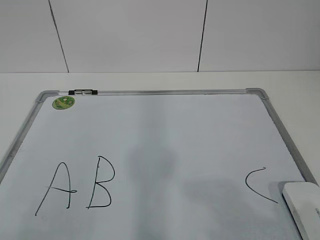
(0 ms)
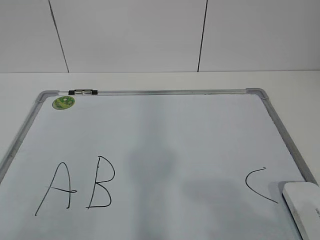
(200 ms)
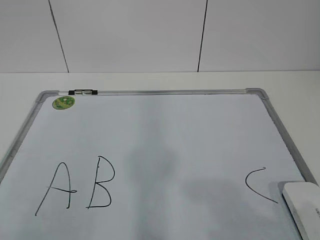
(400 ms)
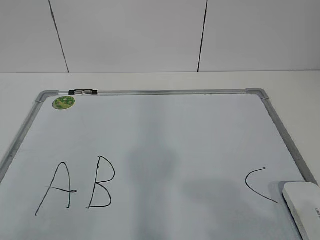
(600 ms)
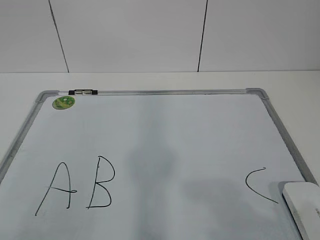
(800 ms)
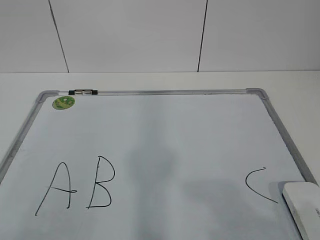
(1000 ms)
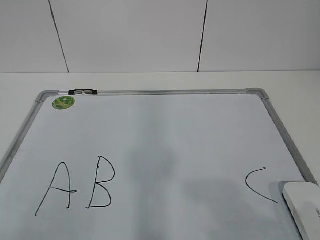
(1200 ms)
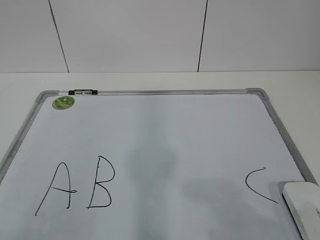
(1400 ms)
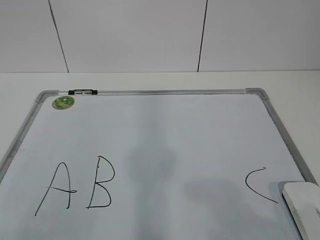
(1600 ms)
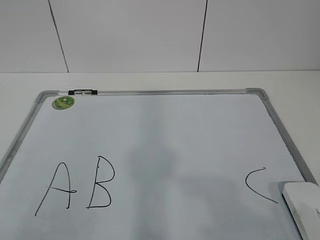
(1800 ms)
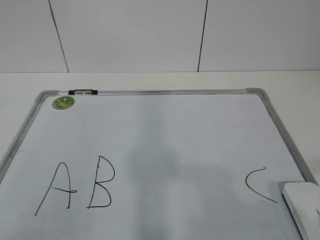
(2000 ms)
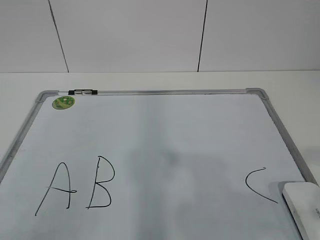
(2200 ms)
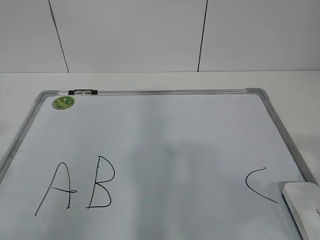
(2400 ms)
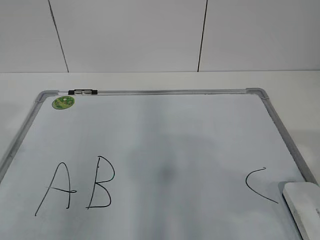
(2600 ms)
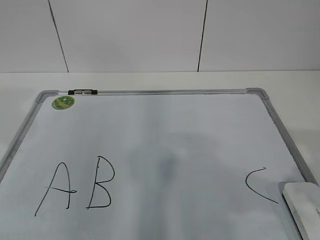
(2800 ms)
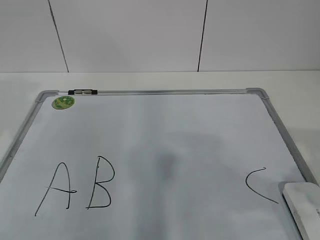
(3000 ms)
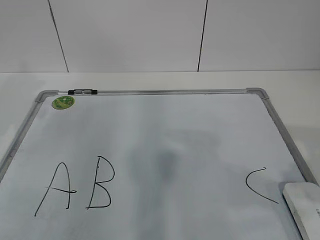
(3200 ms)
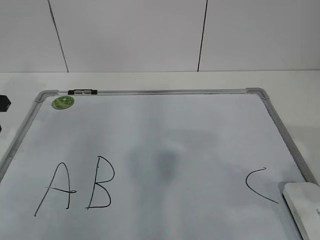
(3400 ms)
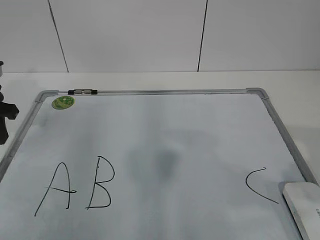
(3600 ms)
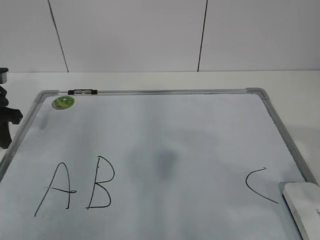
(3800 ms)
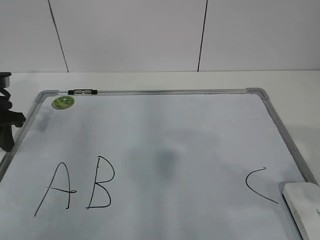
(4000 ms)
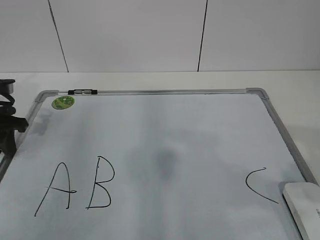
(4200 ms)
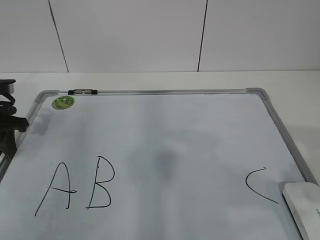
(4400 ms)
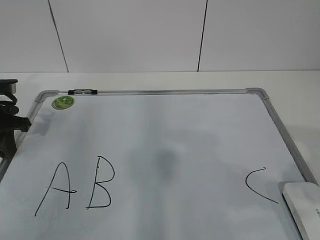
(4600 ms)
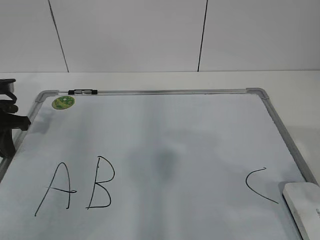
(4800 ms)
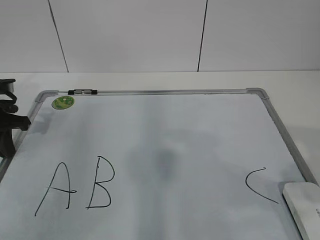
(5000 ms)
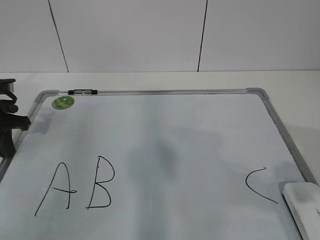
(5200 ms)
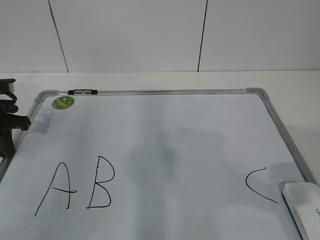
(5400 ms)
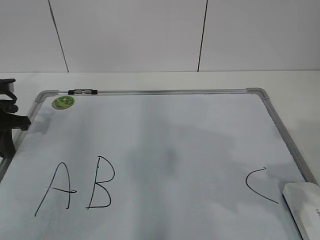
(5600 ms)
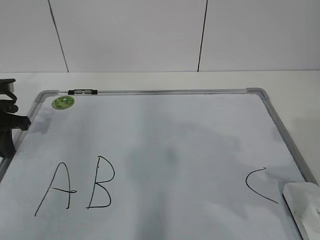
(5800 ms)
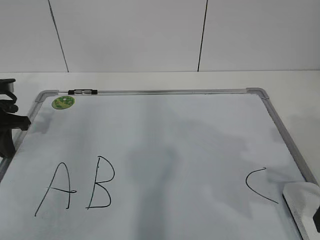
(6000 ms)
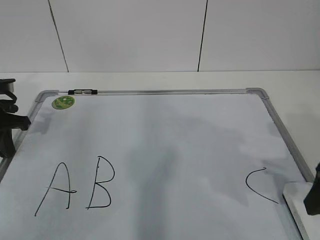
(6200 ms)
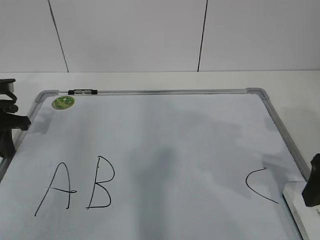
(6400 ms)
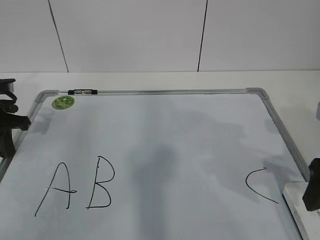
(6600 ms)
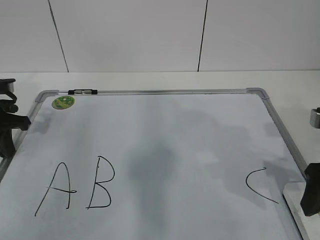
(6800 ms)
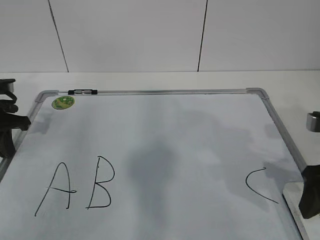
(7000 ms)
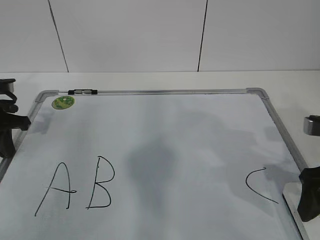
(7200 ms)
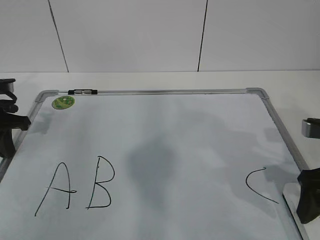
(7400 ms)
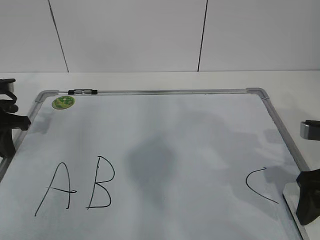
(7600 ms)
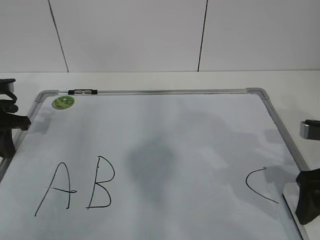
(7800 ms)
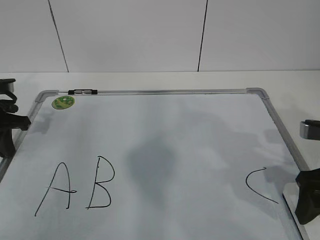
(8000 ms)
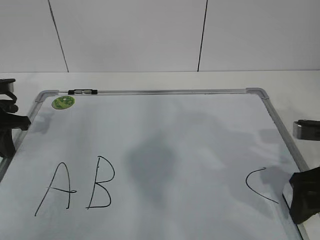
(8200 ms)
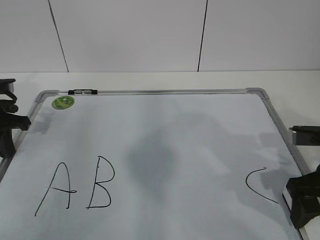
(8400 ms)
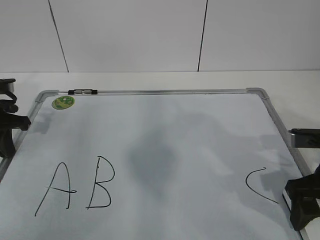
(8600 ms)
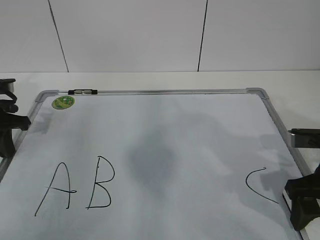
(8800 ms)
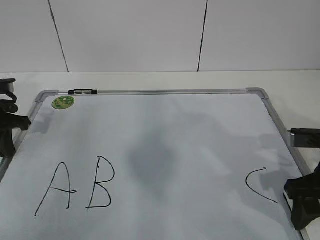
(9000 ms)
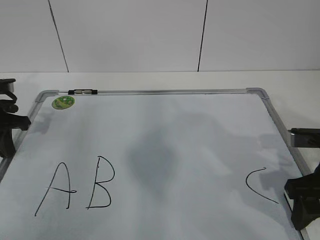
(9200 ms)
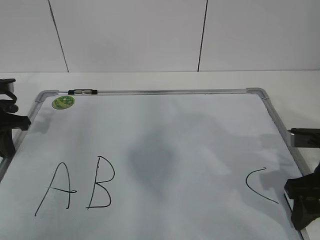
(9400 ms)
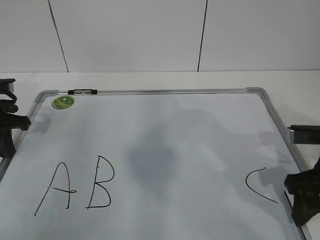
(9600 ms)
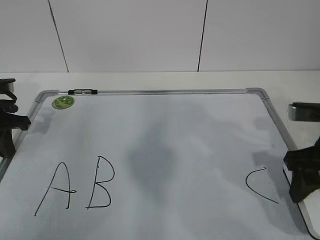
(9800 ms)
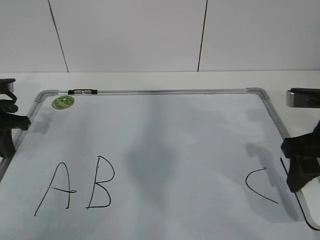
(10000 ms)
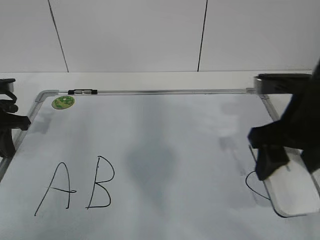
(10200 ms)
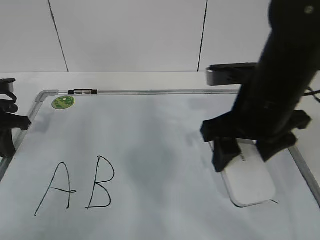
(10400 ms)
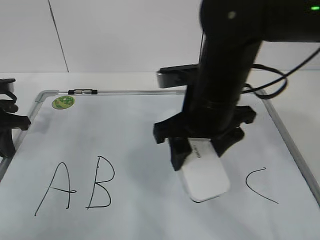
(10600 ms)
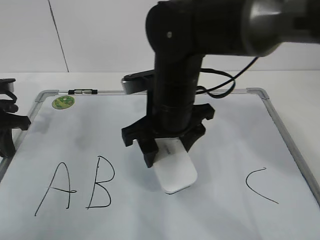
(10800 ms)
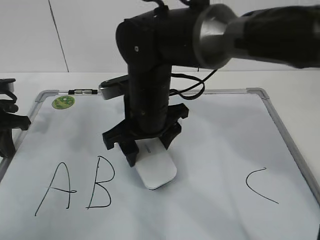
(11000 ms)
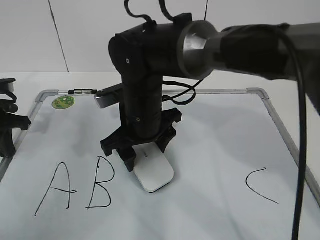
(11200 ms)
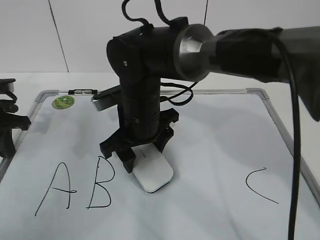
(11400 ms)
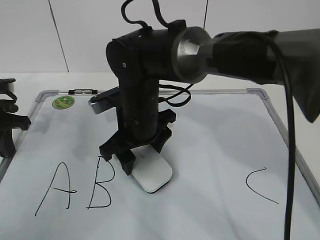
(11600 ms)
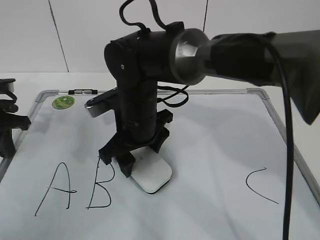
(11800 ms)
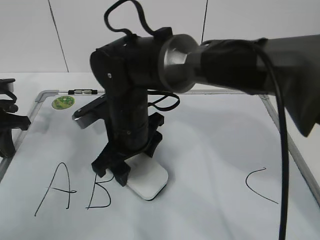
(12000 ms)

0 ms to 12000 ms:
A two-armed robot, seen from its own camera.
Task of the whole recording: pick up the eraser on the blackboard and erase the letter "B".
Step, 4000 ms to 7400 ms: Grab the eraser with your right hand.
1600 ms to 3000 ms: The left gripper goes some 25 cm forward. Meanwhile the right gripper moves forward, approximately 10 cm.
3000 ms to 4400 ms: The left gripper is displaced downward and forward by roughly 15 cm.
6000 ms to 7600 ms: The right gripper goes about 5 cm forward.
7600 ms to 9000 ms: The right gripper closes its fingers.
9000 ms to 10400 ms: The right gripper shifts some 15 cm to the left and upward.
10400 ms to 12000 ms: The right gripper shifts some 20 cm to the left and downward.

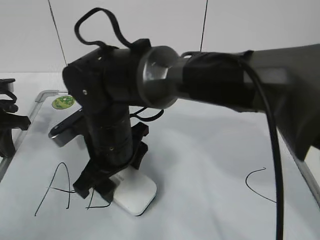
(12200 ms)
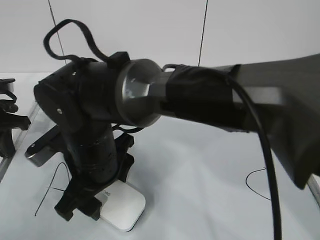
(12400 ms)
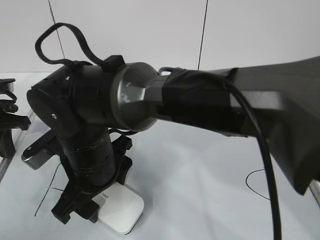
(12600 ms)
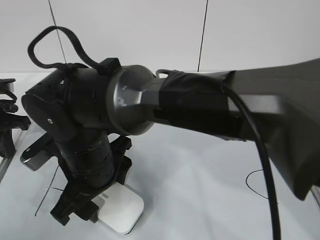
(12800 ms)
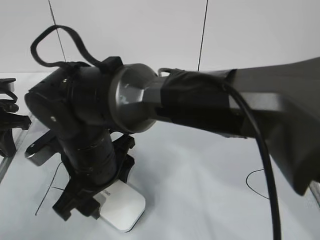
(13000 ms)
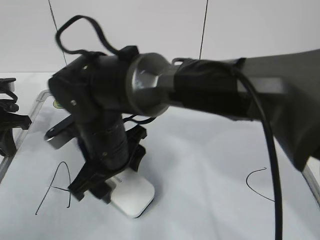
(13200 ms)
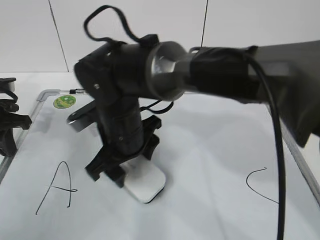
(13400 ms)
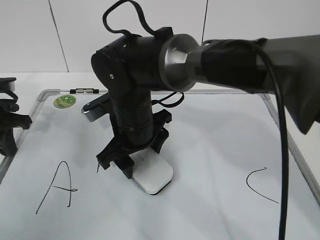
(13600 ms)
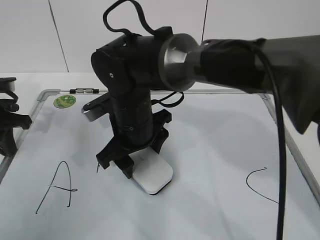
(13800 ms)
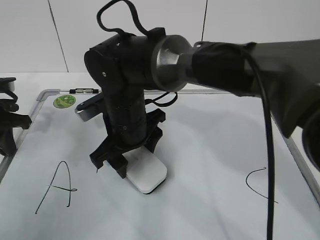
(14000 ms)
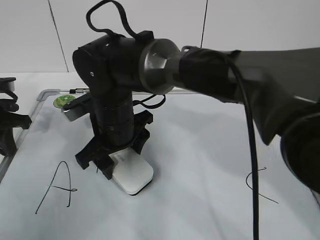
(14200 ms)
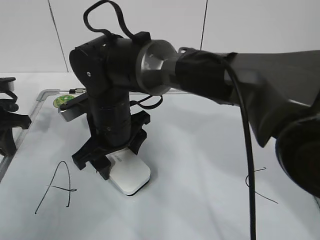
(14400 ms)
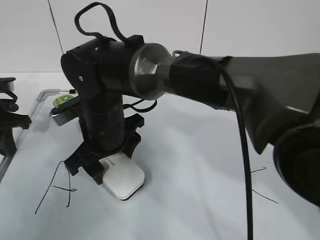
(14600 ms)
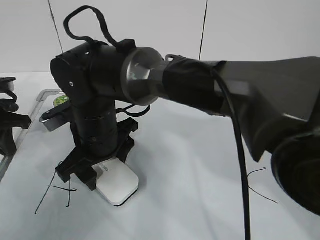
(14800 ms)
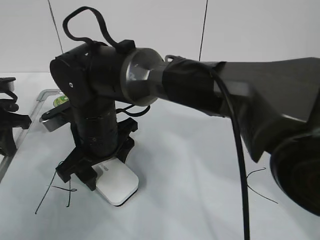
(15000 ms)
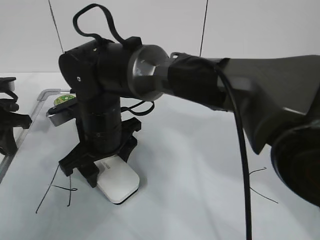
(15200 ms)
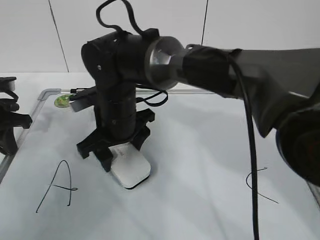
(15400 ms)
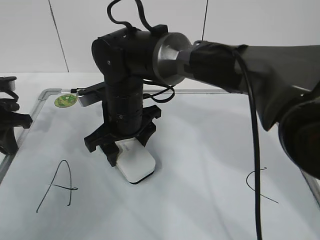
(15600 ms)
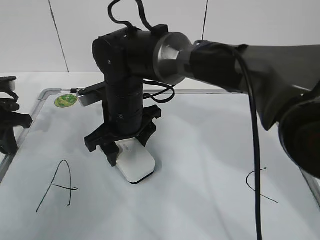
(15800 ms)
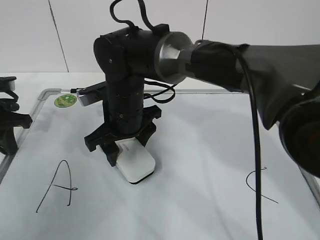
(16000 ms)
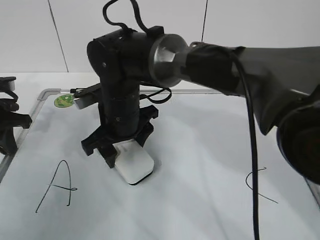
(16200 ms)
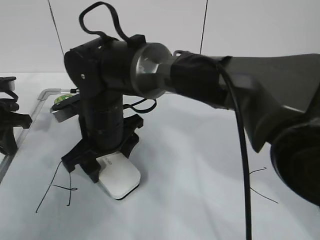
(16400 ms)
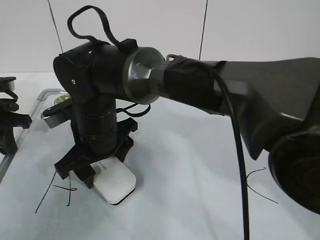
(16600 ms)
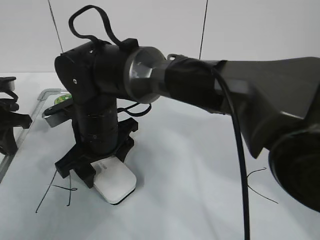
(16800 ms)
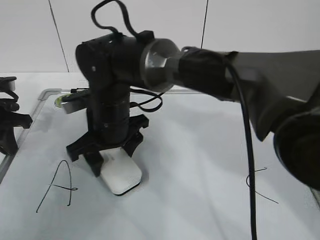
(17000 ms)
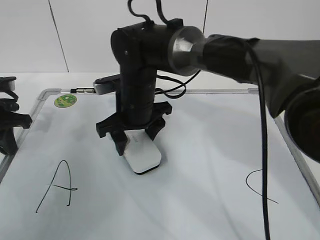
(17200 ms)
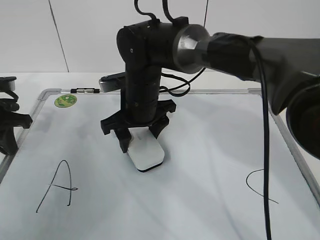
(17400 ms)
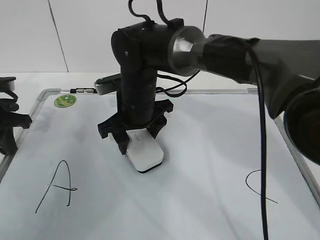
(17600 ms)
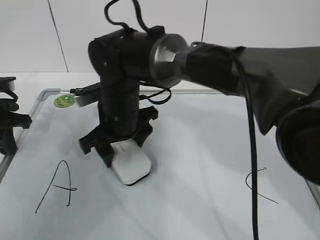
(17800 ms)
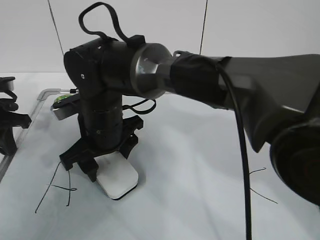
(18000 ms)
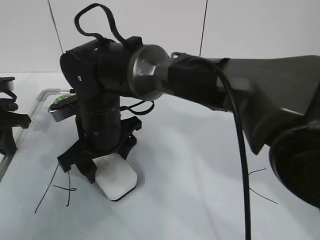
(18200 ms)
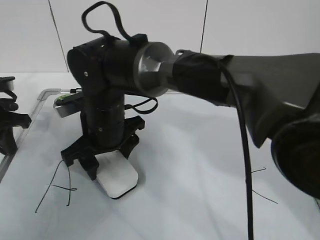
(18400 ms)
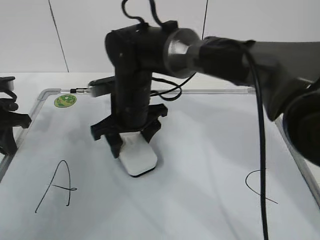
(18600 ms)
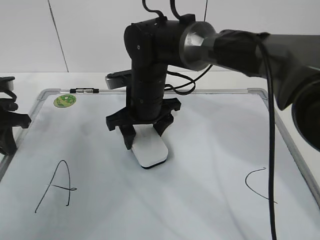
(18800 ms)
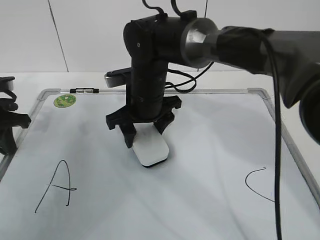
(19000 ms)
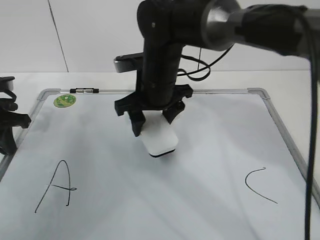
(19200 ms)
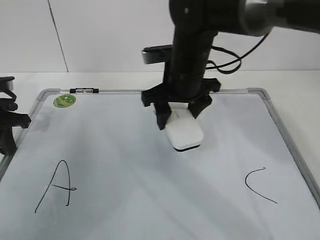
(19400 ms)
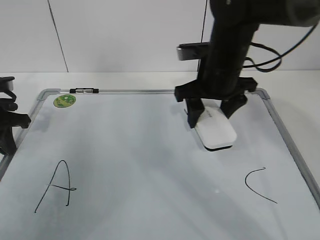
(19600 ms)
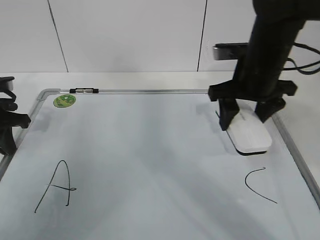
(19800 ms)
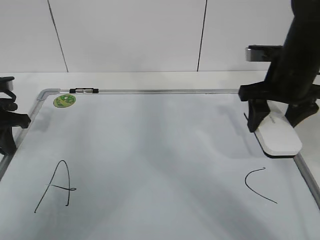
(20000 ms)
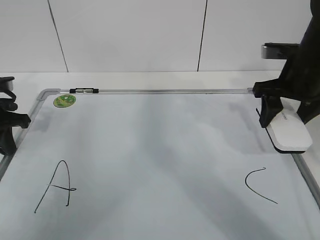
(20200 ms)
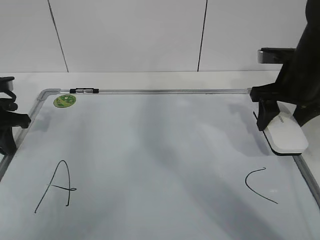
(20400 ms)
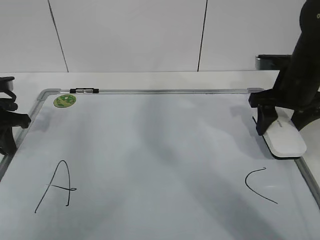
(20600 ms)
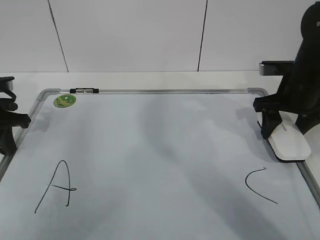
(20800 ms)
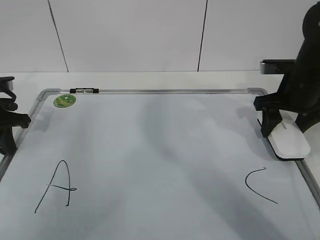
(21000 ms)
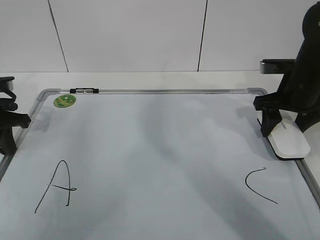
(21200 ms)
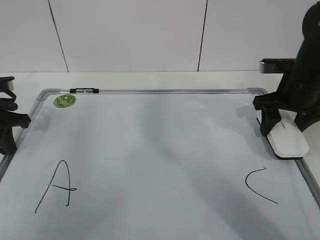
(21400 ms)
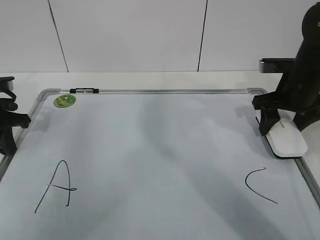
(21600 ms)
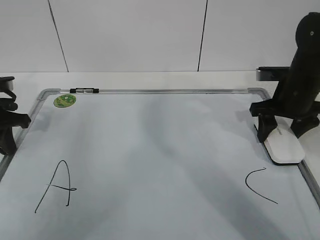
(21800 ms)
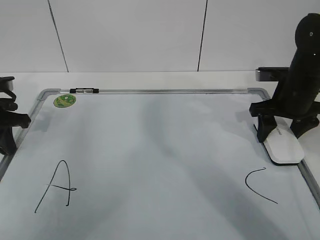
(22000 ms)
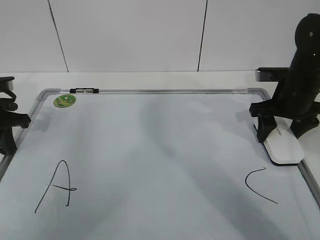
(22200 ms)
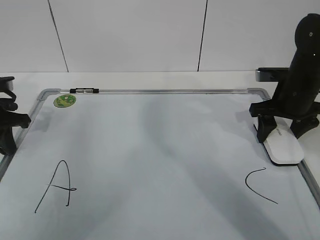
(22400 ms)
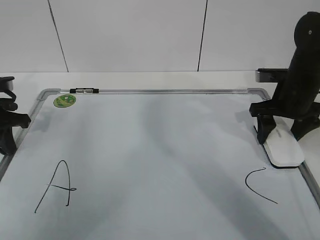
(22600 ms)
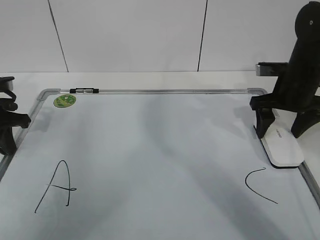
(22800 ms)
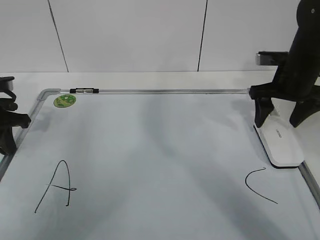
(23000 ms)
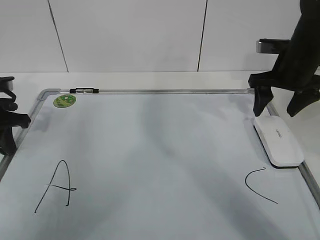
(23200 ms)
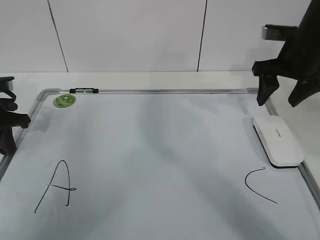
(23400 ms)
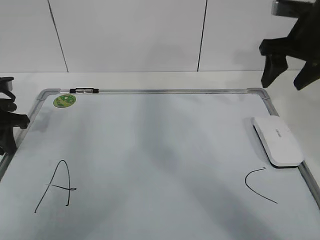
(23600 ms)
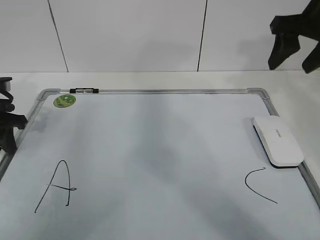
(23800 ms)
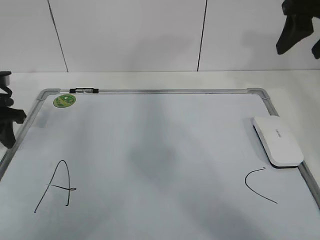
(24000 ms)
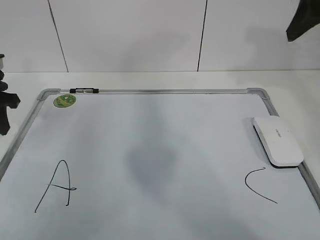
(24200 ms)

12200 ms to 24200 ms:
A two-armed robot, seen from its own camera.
Task of the whole recording: pick up the eraser on the blackboard and erase the letter "B".
Step, 12200 ms to 15400 ms: Erase the letter B with your right hand.
Step, 15600 ms to 18600 ms: Put down the eraser with your right hand.
15200 ms to 16600 ms: The grippers move only a little.
18200 ms to 19800 ms: The right gripper heads to the right, covering approximately 25 cm.
19800 ms to 21200 ms: The right gripper heads to the right, covering some 10 cm.
21200 ms to 22600 ms: The grippers move only a little.
22600 ms to 24200 ms: The right gripper moves upward, roughly 20 cm, and opens, then closes again; the left gripper opens.
